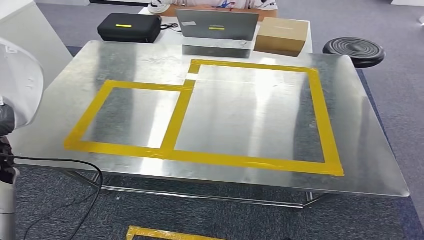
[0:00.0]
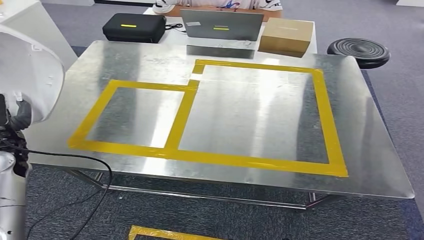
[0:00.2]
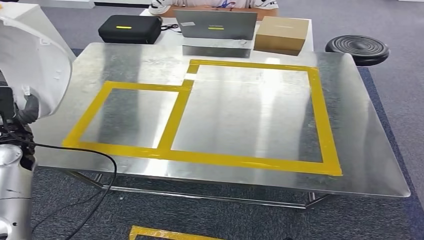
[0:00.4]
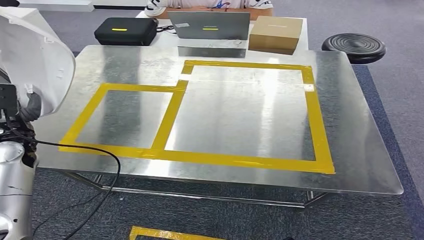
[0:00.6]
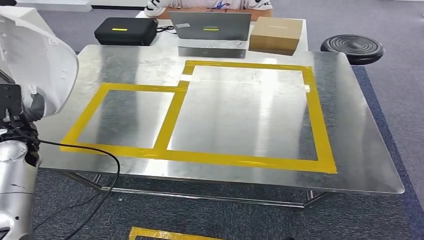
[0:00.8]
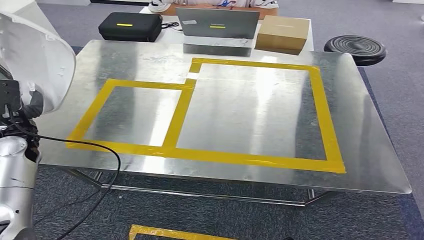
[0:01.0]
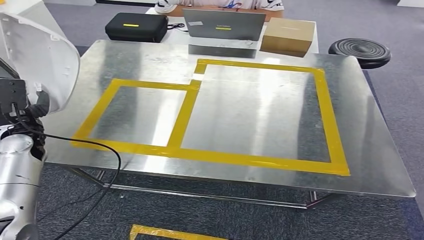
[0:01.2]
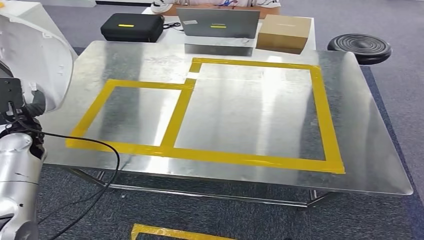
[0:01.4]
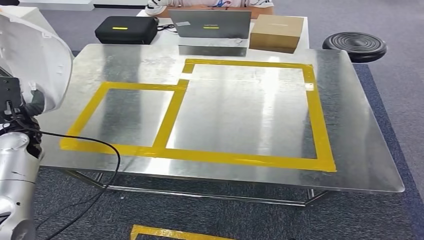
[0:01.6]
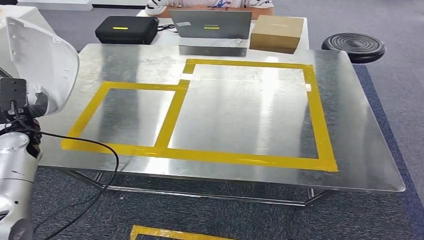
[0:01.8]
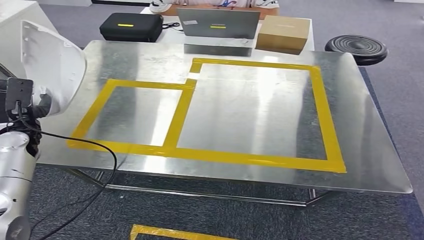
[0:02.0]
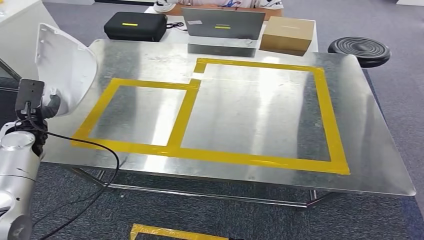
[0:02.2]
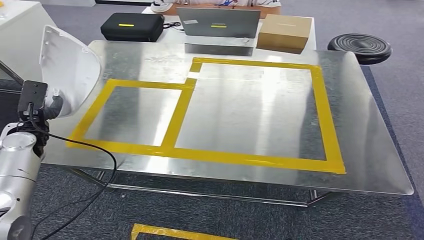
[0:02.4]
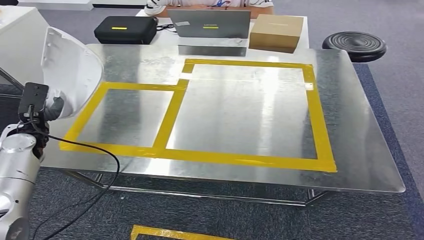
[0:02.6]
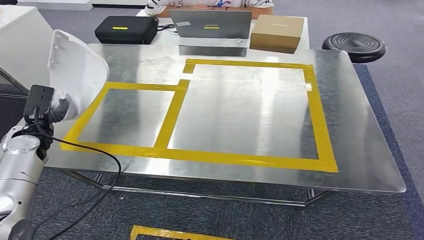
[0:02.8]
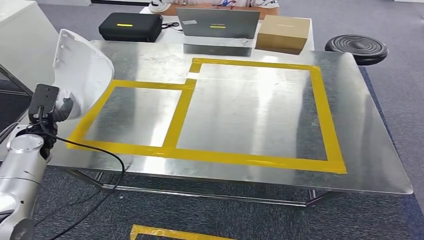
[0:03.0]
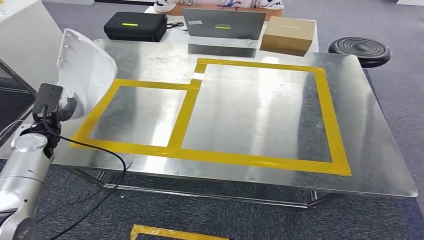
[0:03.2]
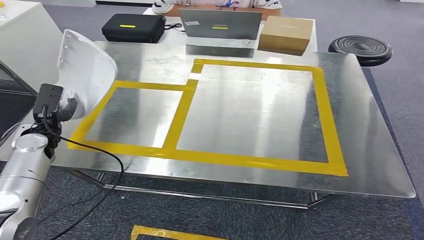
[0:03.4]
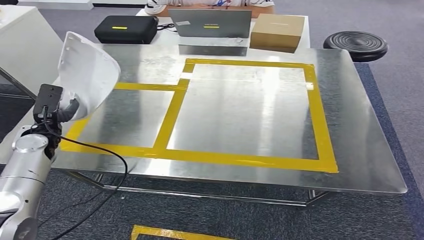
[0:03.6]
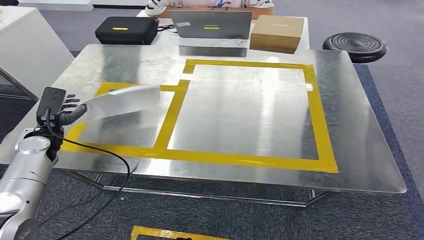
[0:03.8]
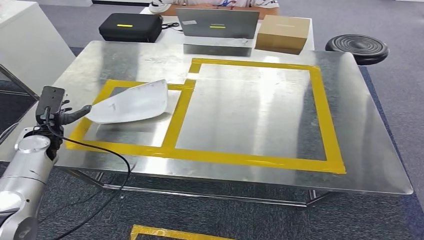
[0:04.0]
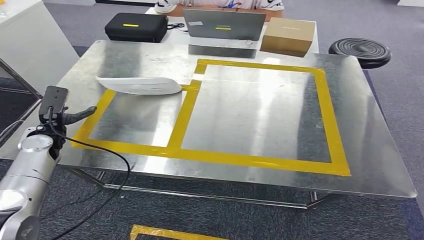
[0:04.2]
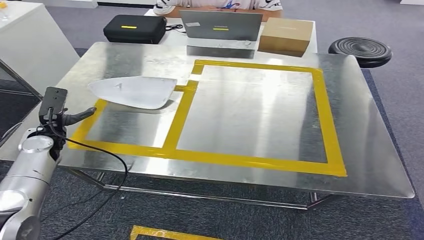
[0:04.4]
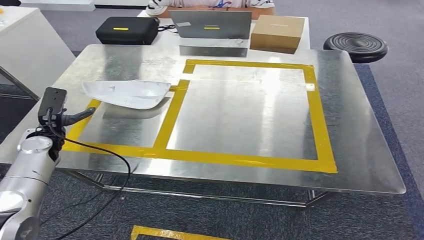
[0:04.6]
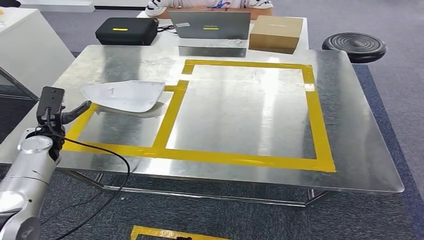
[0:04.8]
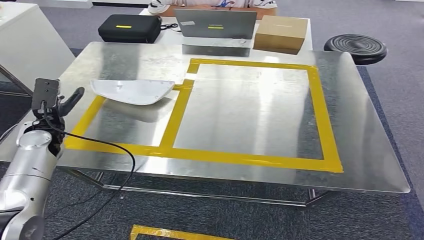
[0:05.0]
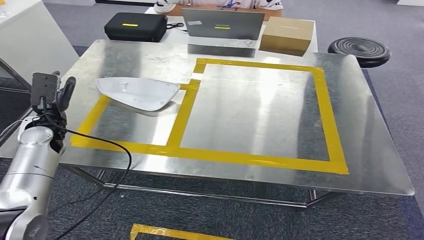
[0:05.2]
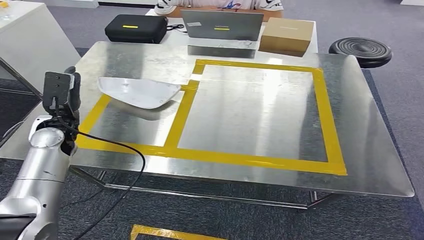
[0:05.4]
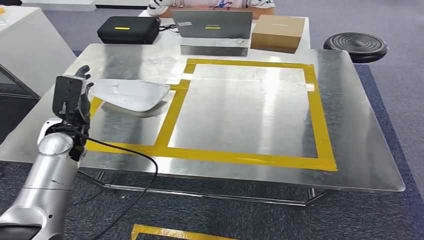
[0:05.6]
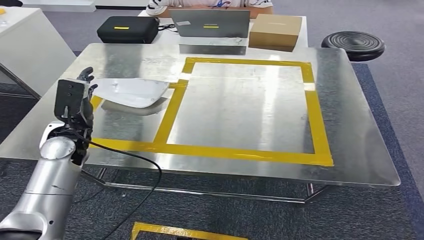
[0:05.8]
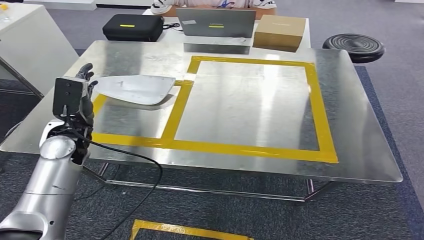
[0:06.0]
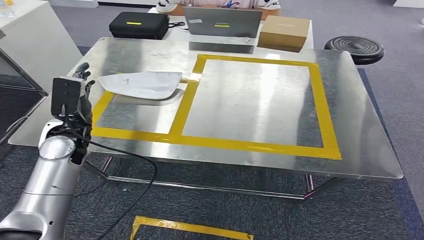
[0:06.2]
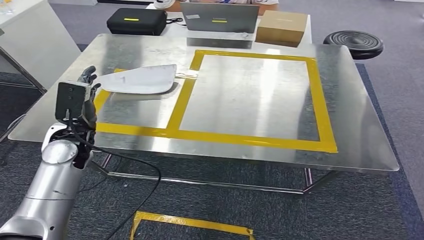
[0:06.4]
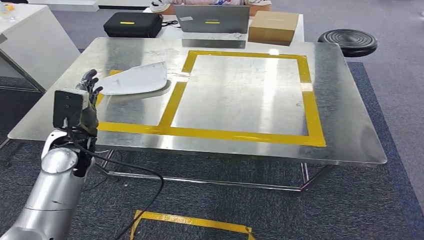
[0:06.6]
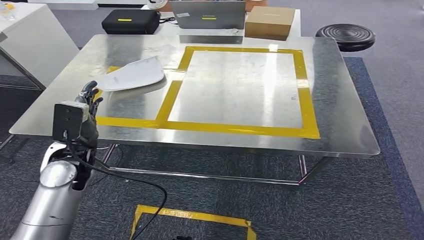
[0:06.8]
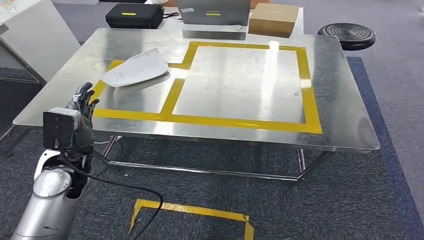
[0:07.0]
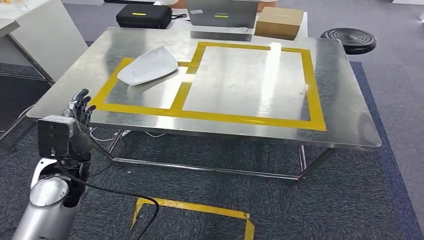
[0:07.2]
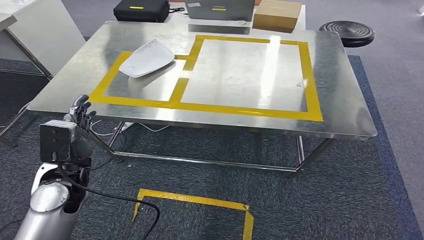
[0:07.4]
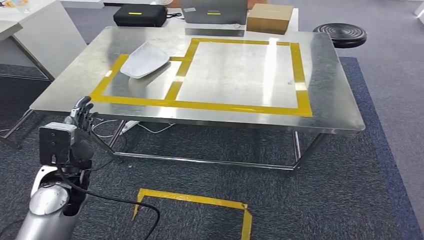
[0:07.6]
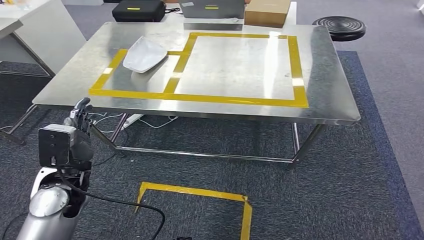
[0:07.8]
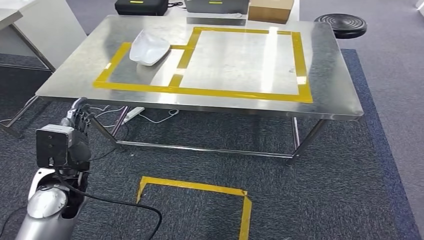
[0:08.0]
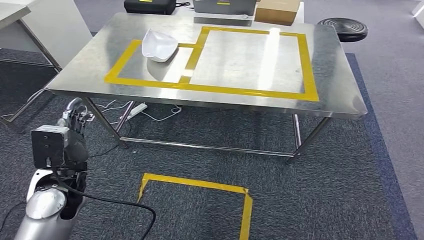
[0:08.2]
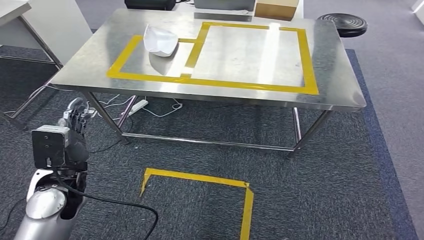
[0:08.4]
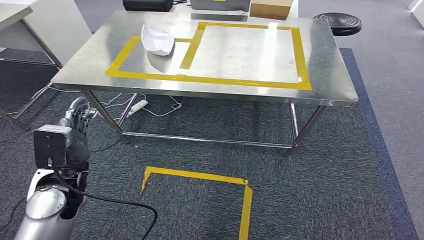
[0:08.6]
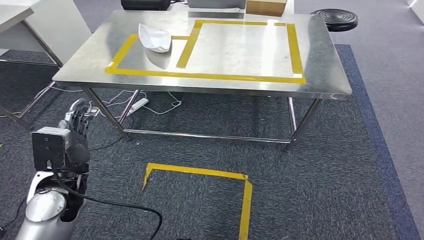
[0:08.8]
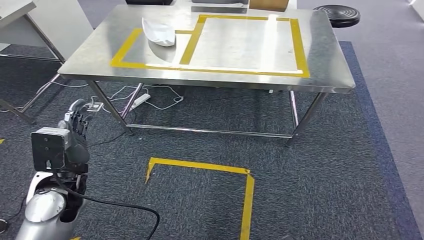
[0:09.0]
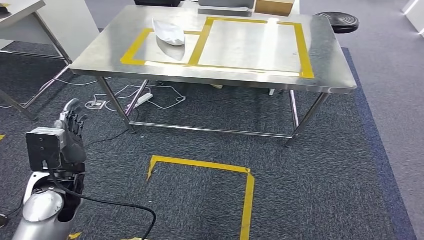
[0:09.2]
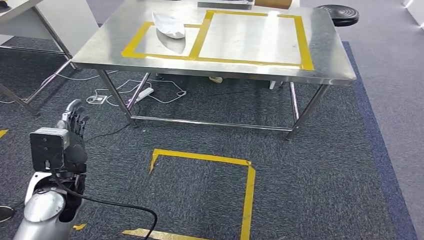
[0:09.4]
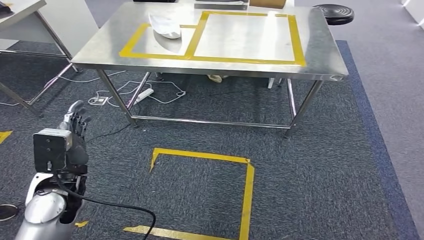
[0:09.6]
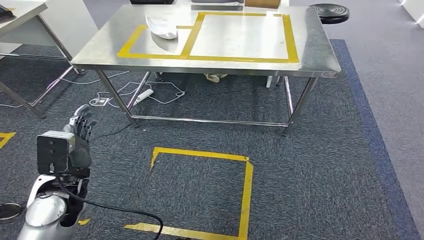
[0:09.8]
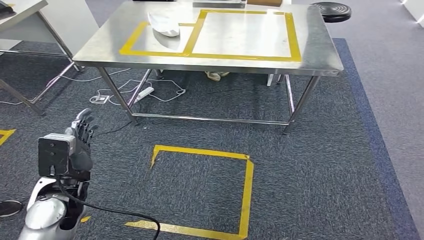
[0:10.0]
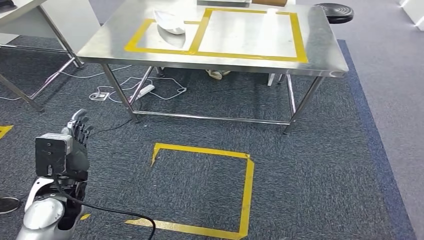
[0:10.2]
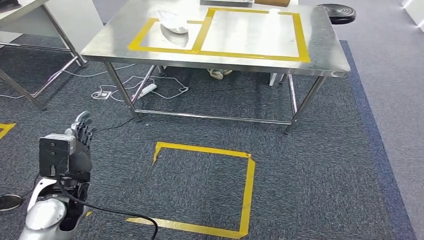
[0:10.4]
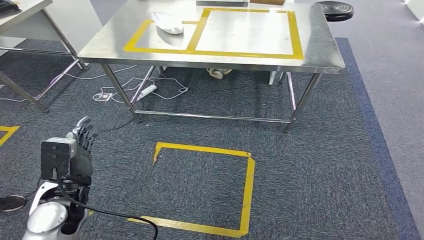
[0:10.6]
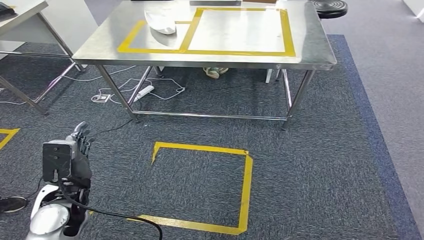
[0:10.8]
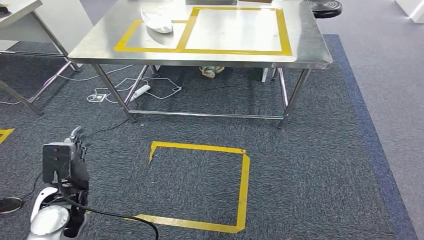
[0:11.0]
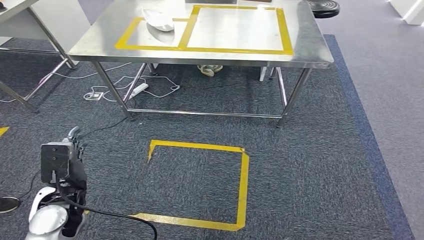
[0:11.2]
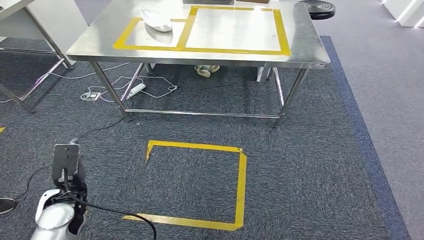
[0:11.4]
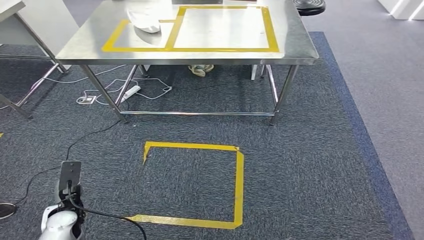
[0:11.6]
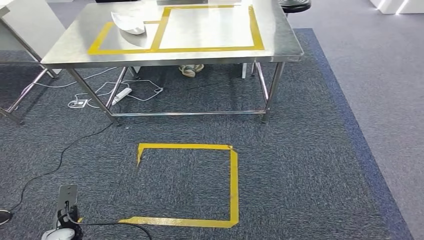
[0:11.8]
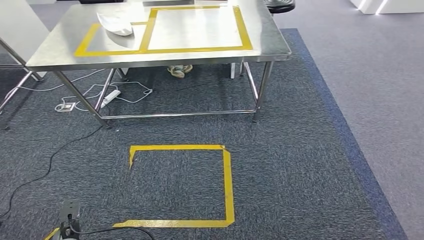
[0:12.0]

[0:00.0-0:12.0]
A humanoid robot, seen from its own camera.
Step, 0:00.0 to 0:04.4: Insert the small component into the corresponding slot on the workbench.

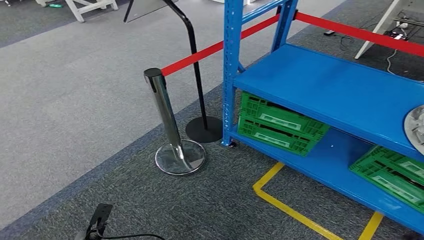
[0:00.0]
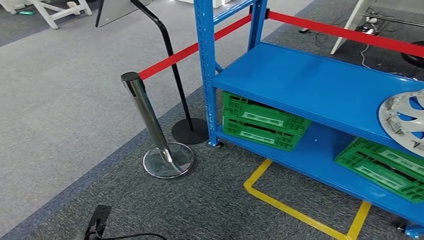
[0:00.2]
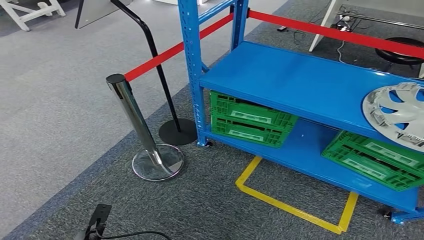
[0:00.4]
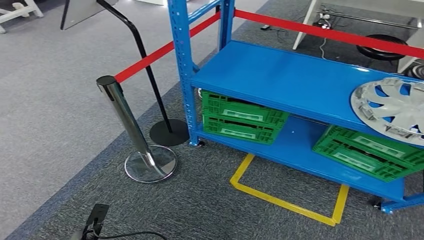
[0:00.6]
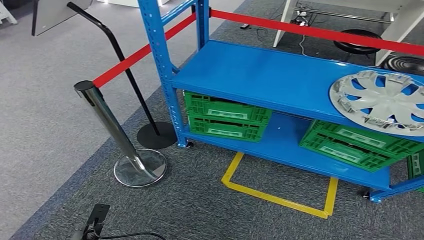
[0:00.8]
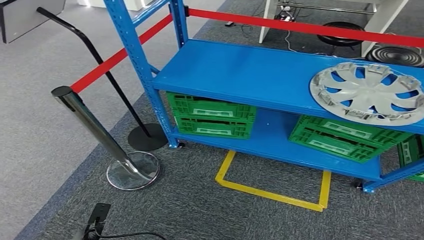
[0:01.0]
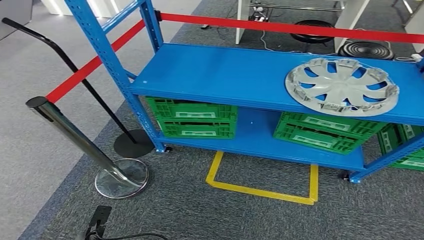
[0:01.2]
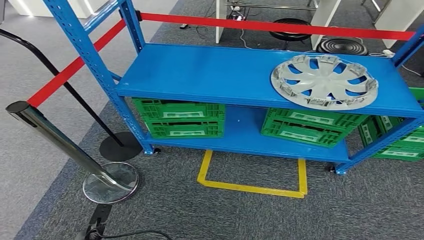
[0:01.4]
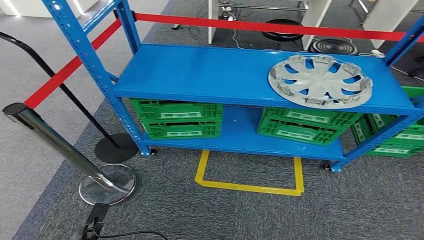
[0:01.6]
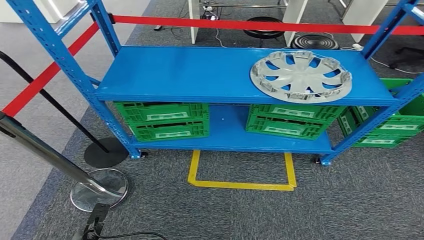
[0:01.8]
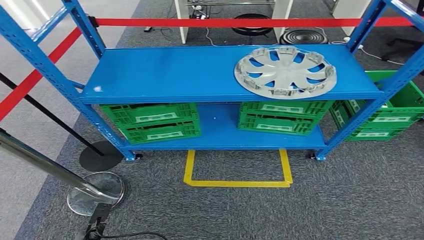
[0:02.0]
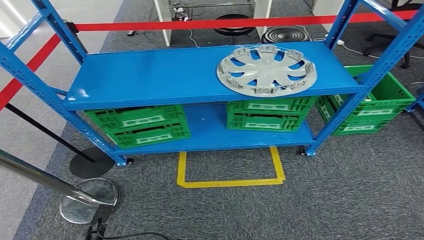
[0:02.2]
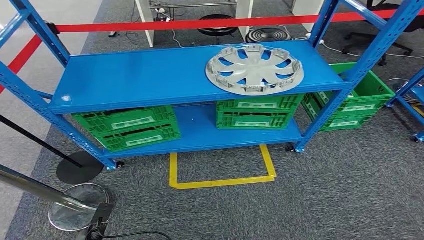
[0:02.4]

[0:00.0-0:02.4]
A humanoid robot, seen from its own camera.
Step, 0:00.0 to 0:02.4: Move to the initial position at the workbench.
